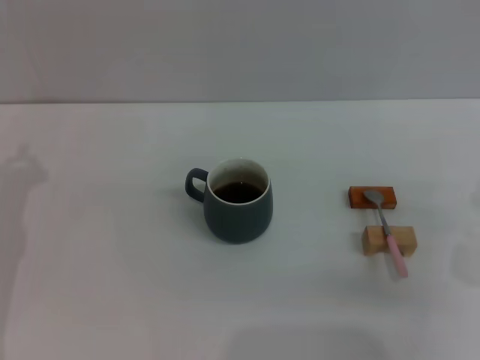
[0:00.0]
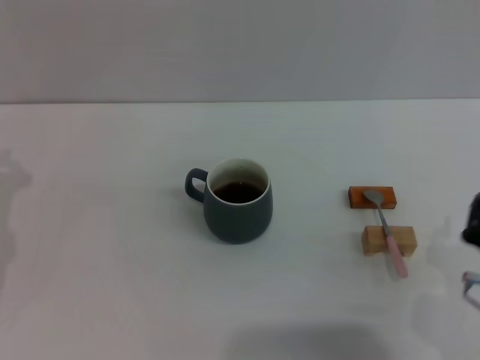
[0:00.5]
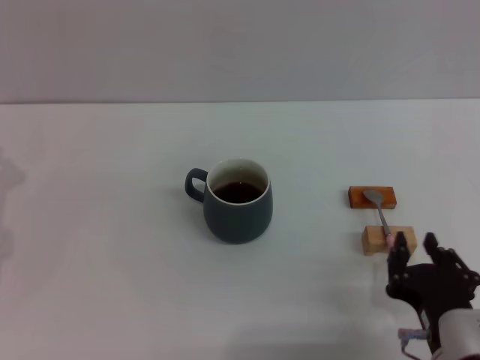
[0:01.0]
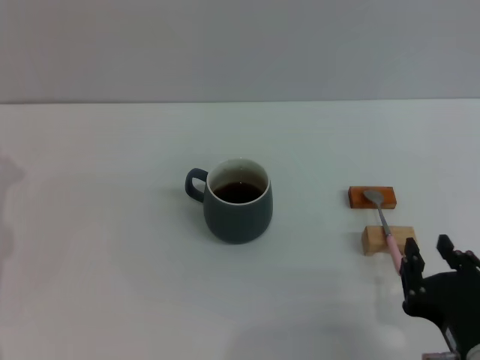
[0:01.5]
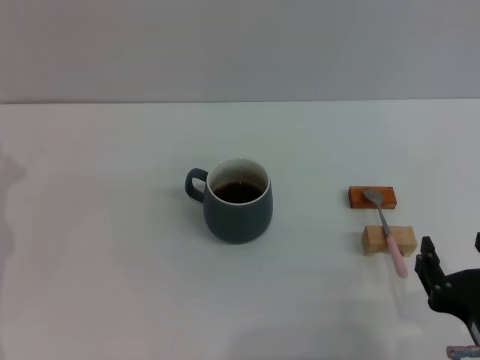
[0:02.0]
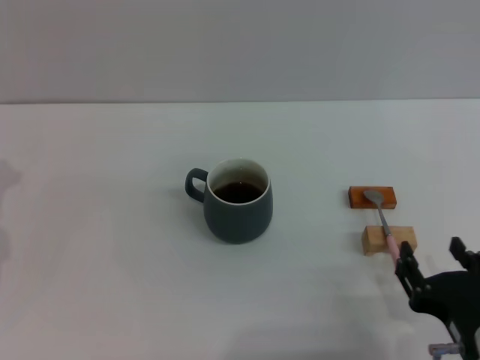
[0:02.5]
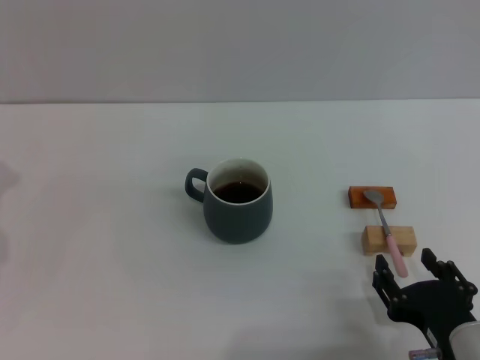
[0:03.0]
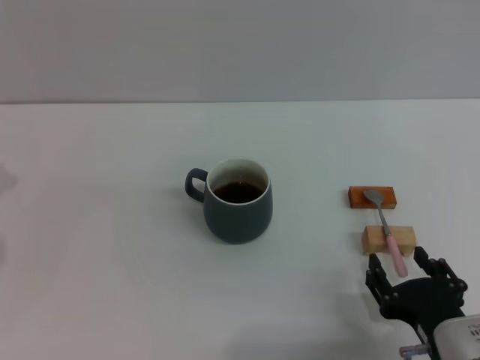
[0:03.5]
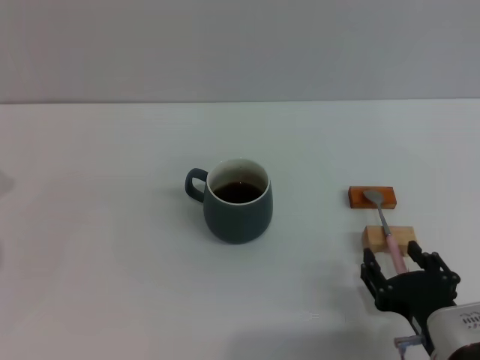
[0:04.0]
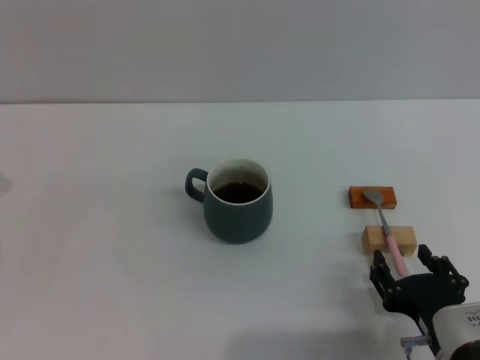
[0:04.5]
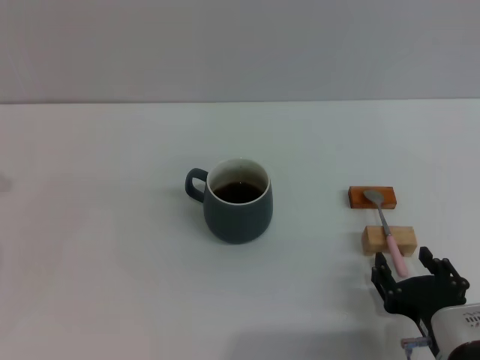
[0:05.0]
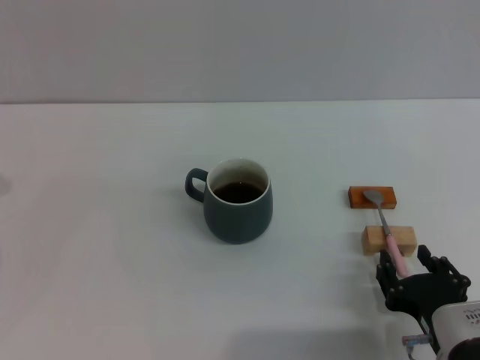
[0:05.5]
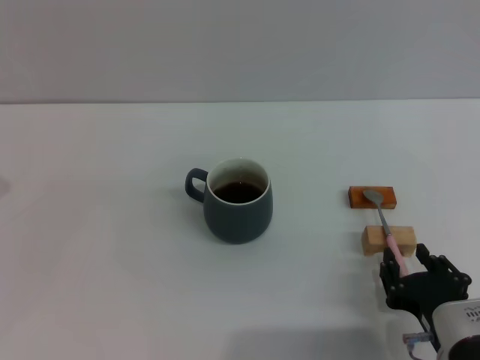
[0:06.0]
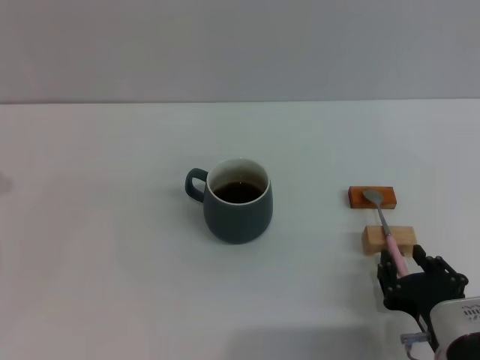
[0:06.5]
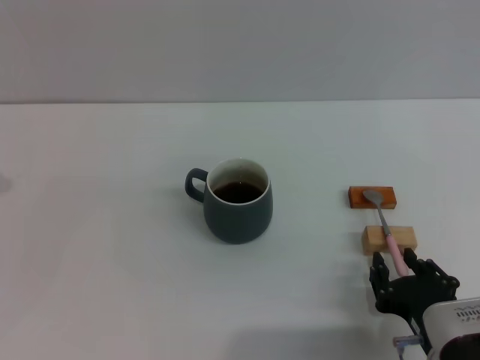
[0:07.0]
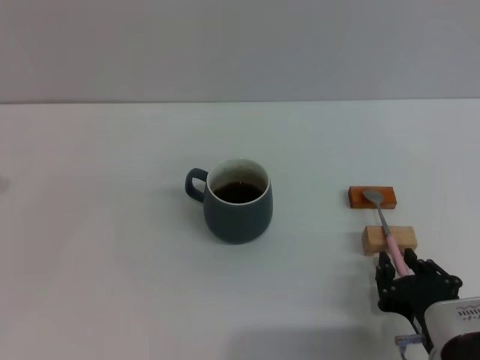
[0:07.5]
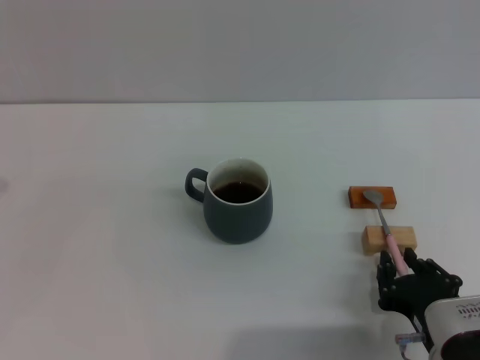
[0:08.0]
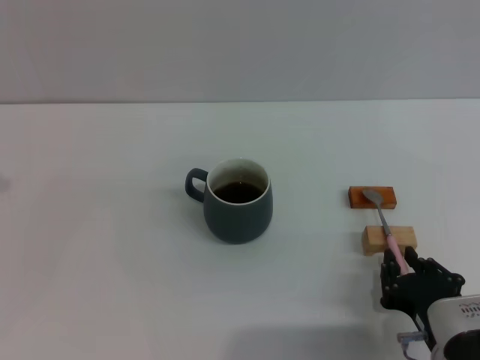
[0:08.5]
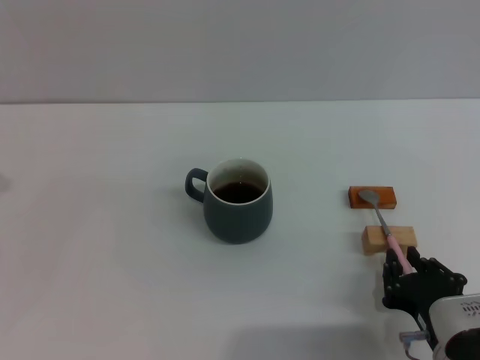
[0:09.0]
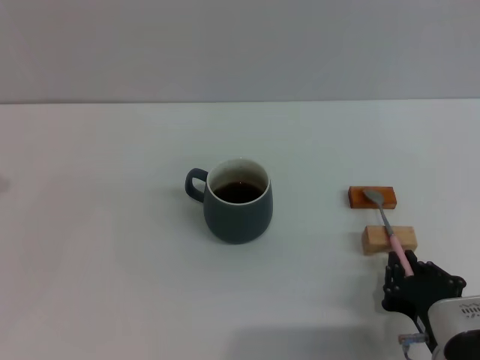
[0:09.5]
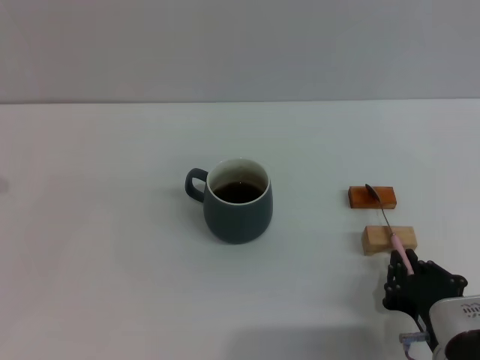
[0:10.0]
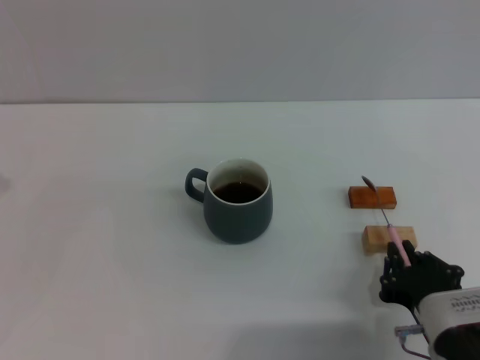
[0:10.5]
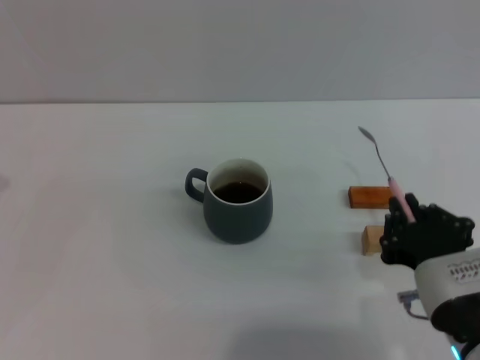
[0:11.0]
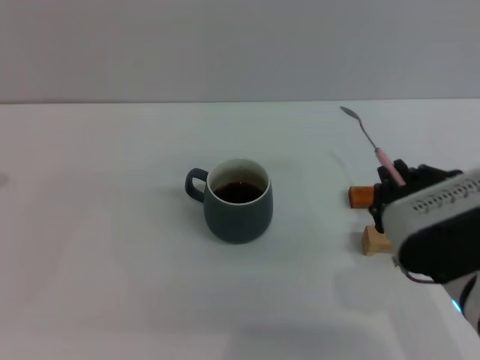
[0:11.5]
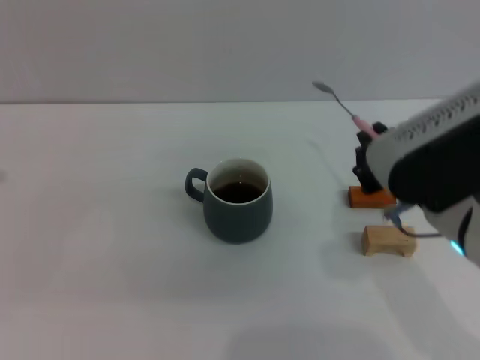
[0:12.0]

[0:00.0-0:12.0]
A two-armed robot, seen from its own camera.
Task of the whole recording: Move the grey cup to the center, lift the pink spoon, stir it three times in the cup, and put the spoon into the cup.
Step, 0.0 to 11.0 s: Pick up the spoon with the right gripper.
0.0 to 2.0 s: The right gripper goes some 15 cm backward and to the left.
2.0 to 4.0 s: The right gripper is displaced downward by approximately 5 cm.
4.0 to 6.0 s: The right gripper closes its fingers.
6.0 to 10.0 s: The two grippers keep their place.
10.0 to 12.0 s: The right gripper goes about 15 cm upward.

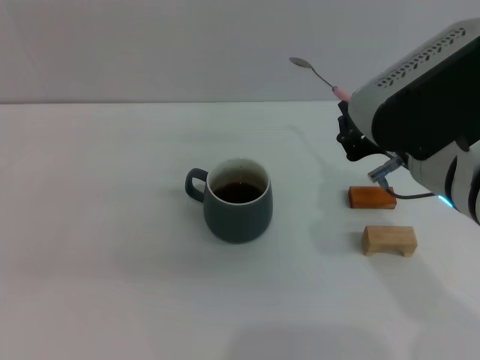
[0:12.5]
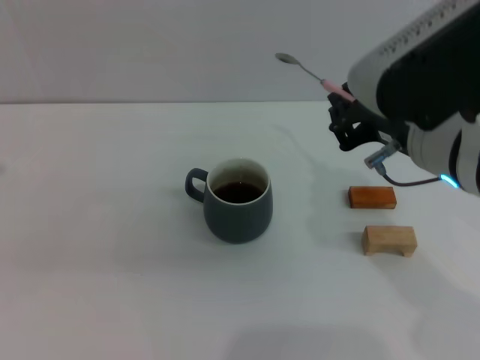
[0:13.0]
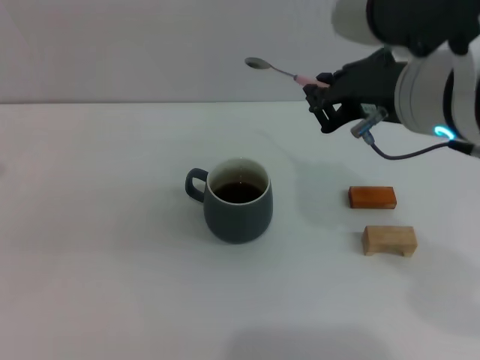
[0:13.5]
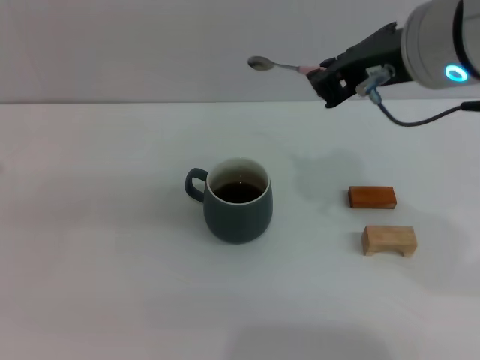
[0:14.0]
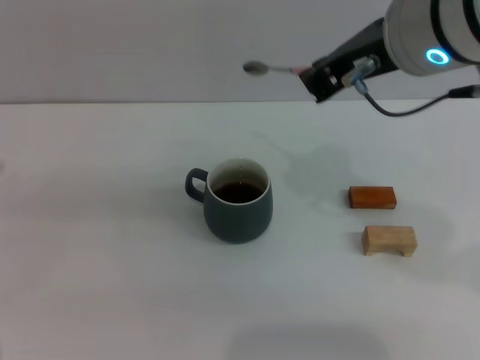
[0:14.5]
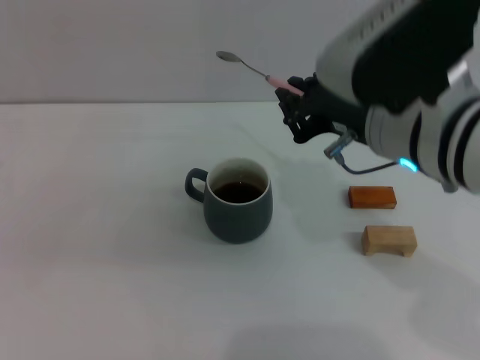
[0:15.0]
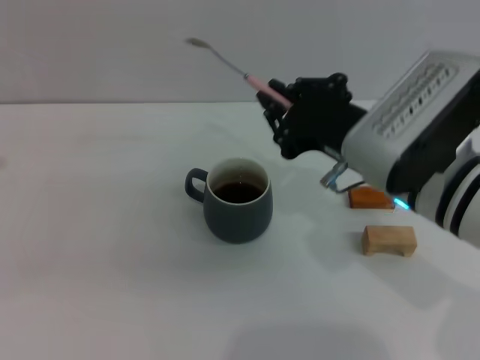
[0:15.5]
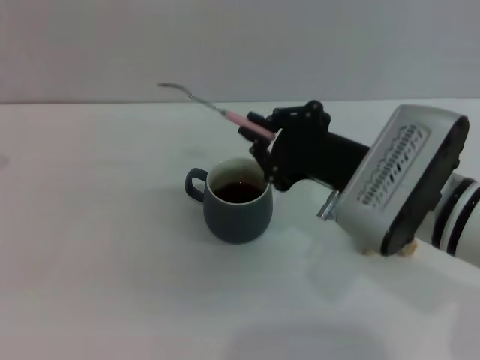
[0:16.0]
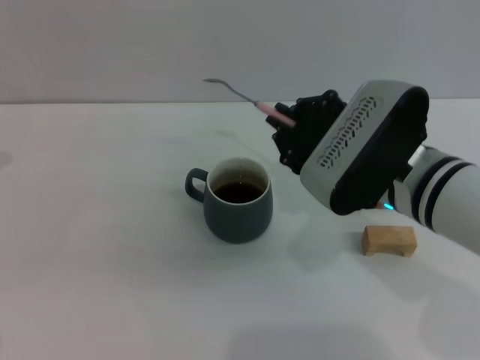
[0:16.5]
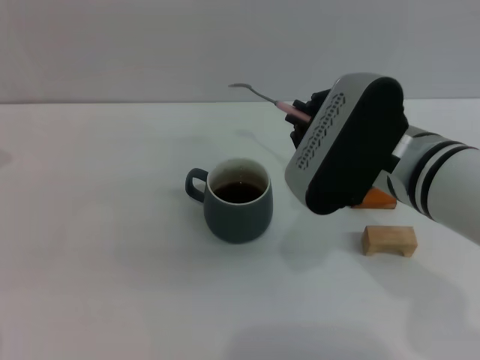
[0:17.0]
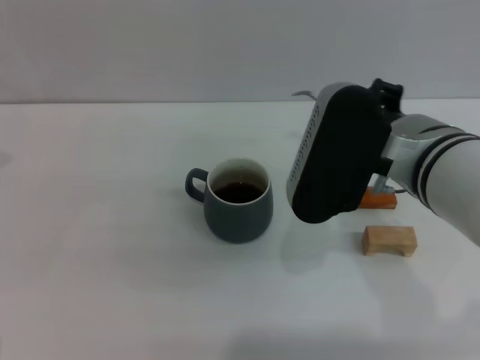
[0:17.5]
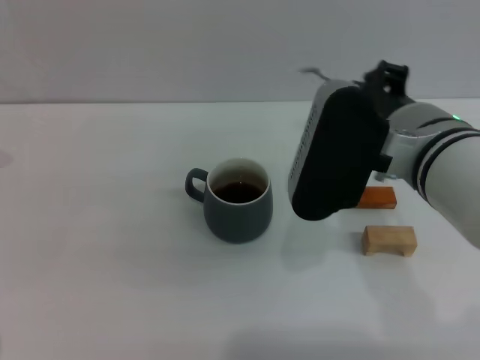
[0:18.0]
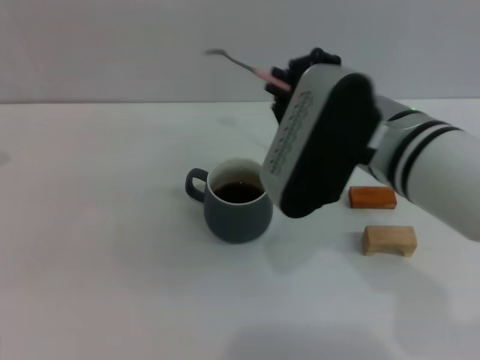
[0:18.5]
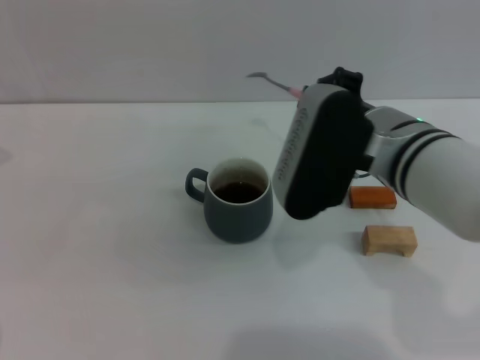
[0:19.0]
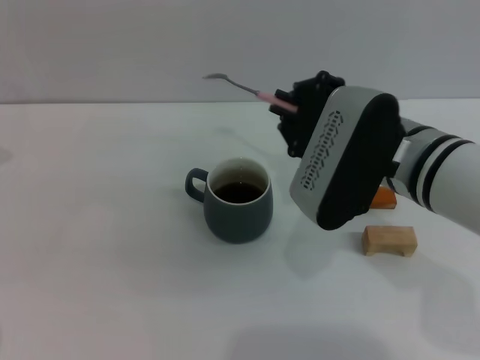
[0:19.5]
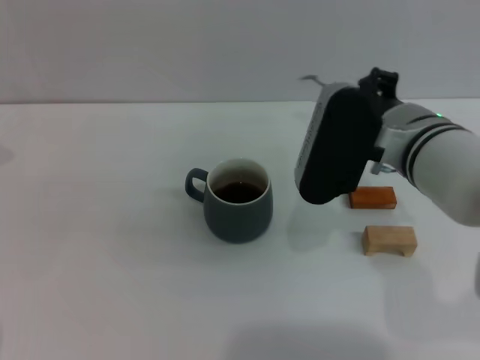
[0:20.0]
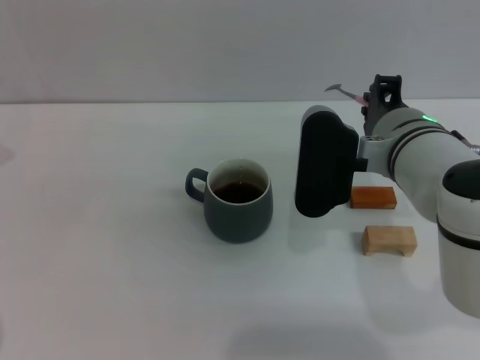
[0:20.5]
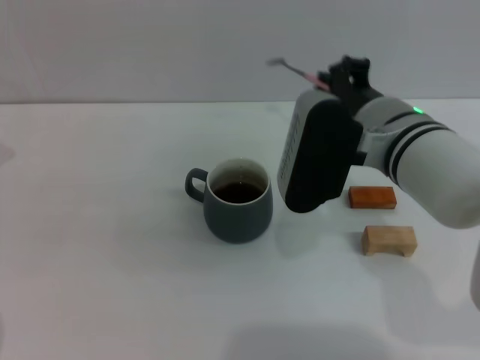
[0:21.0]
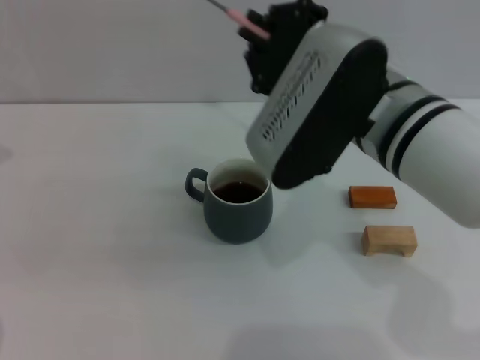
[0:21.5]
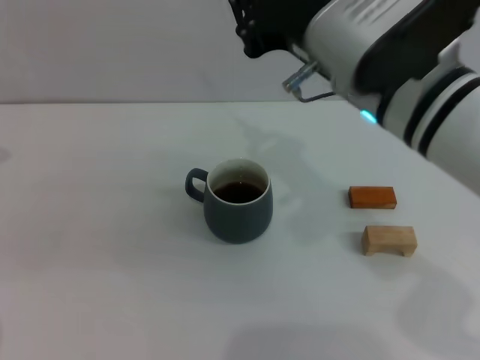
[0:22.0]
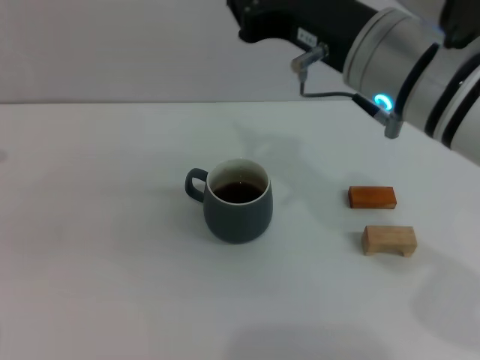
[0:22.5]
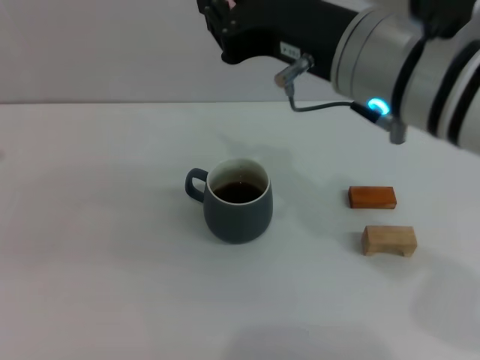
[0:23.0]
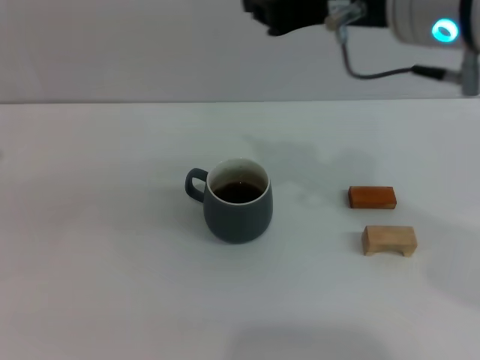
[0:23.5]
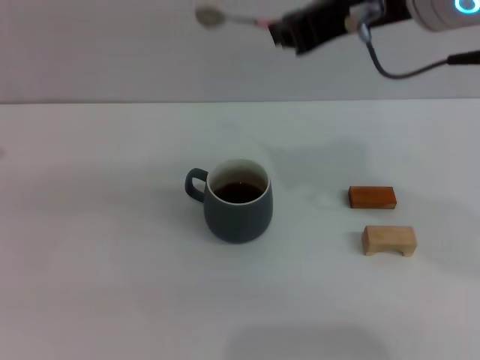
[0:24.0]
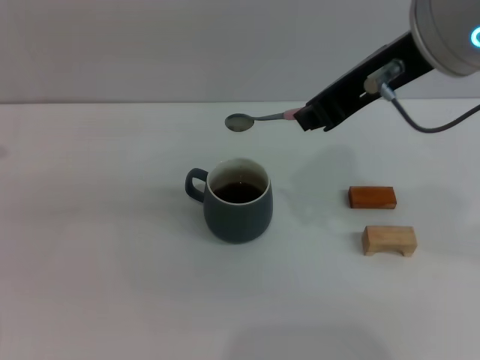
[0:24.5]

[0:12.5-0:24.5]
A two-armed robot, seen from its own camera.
Task of the whole recording: Move the grey cup to the center, lift the pink spoon, stir it three times in the cup, and put the spoon into the cup.
12.5 to 14.5 s: The right gripper shifts some 10 cm upward.
14.5 to 16.5 s: The right gripper shifts roughly 15 cm downward.
18.5 to 20.5 s: The right gripper moves roughly 5 cm.
20.5 to 22.5 s: The right gripper heads upward, covering about 10 cm.
22.5 to 24.5 s: The right gripper travels upward by roughly 10 cm.

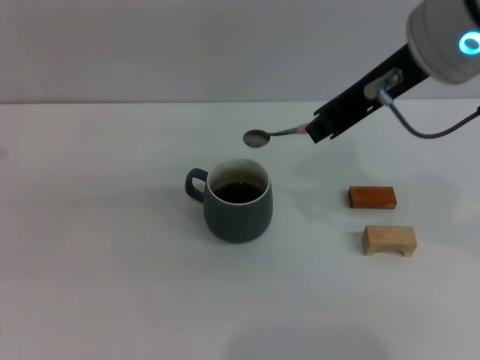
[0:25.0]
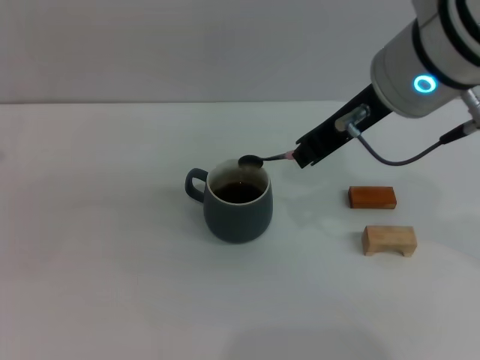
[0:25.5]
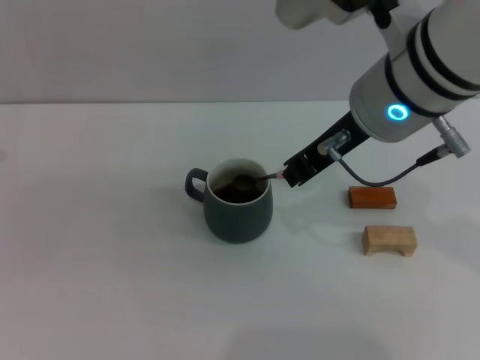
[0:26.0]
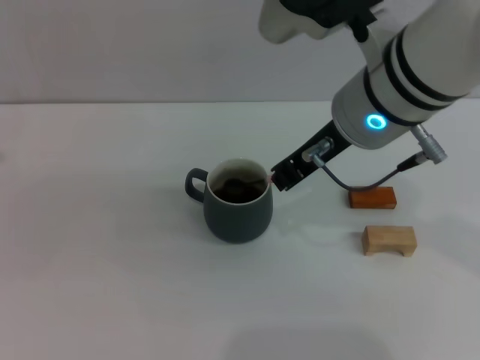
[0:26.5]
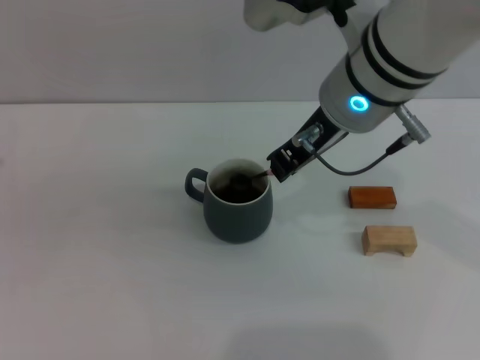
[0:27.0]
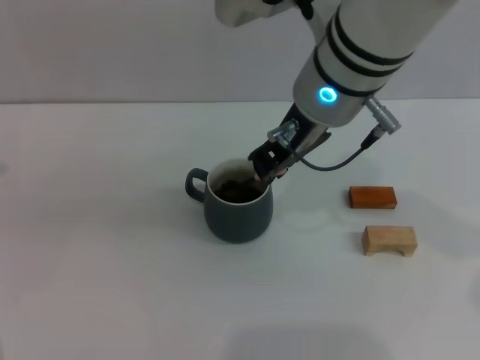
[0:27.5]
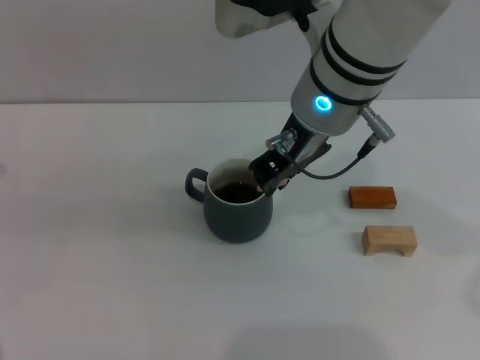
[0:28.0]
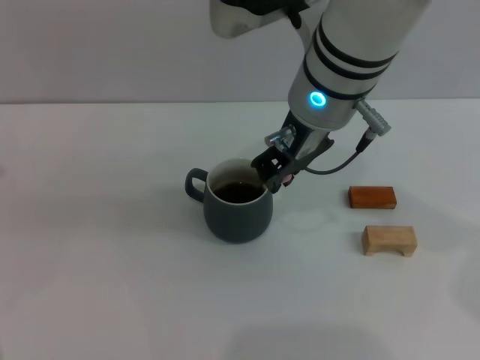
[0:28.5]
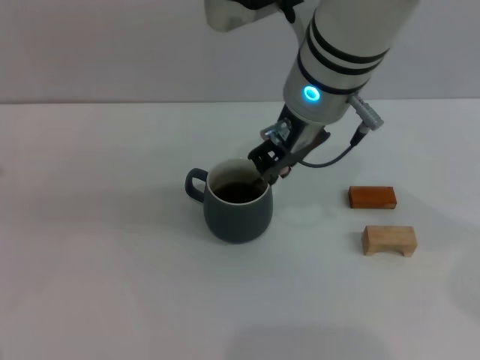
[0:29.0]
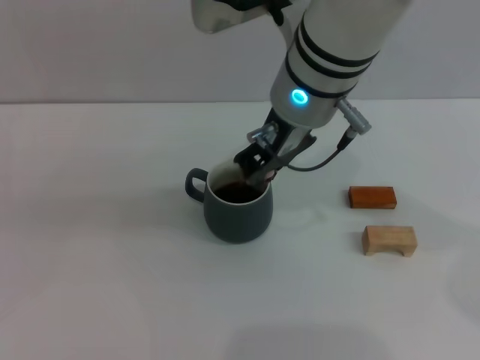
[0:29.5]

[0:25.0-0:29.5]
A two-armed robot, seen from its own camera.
Task of the whole recording: Move the grey cup to the center, lift the pink spoon, stir it three times in the cup, and put the spoon into the cup.
25.0 to 27.0 s: The right gripper goes approximately 5 cm downward.
27.0 to 29.5 s: The grippers stay close to where they were, moving slightly.
